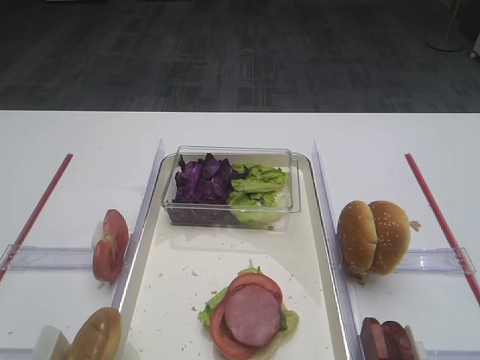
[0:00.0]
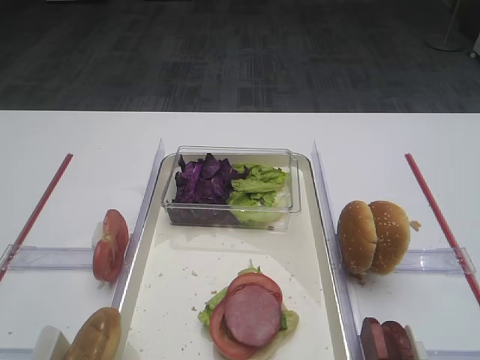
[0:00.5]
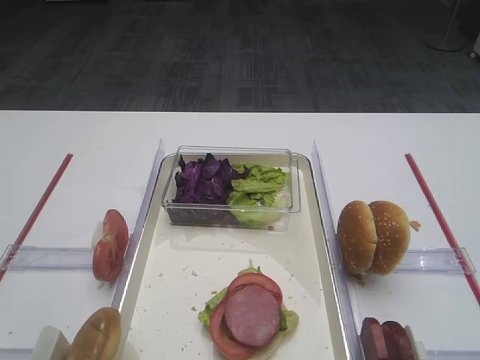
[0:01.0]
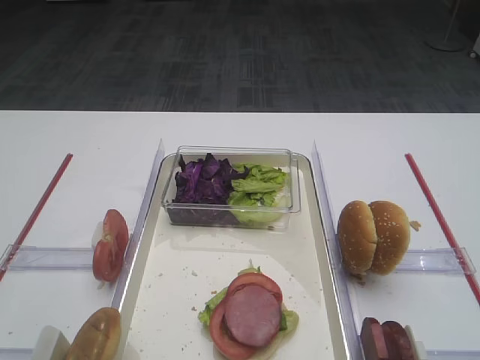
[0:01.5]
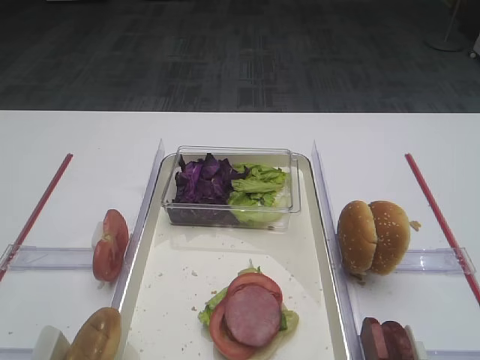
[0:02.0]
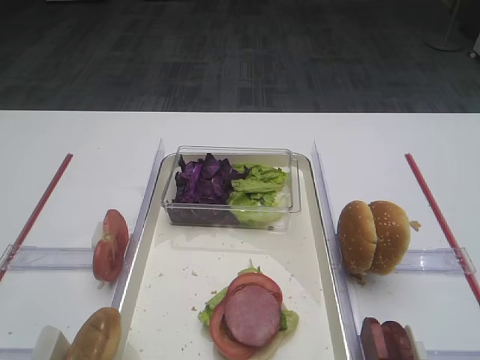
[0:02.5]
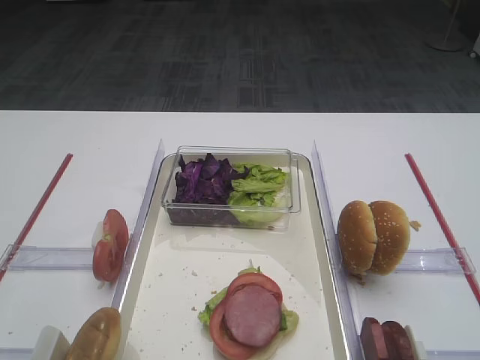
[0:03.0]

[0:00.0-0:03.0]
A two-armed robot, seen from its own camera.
0:00.0 to 0:03.0: Both grippers stay about where they are.
